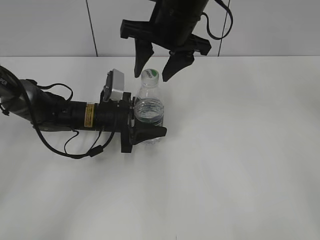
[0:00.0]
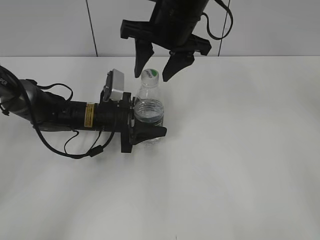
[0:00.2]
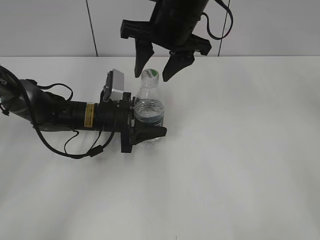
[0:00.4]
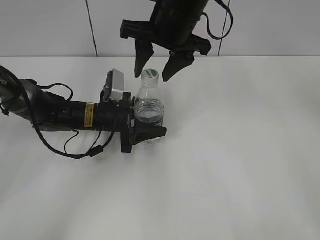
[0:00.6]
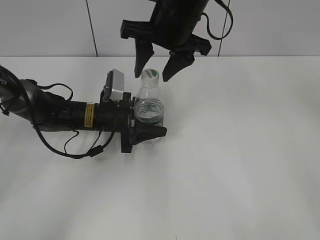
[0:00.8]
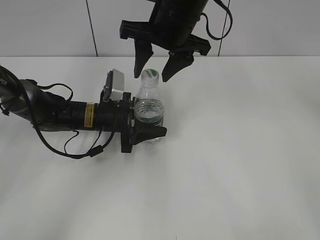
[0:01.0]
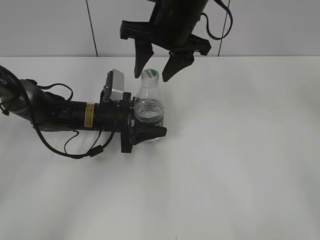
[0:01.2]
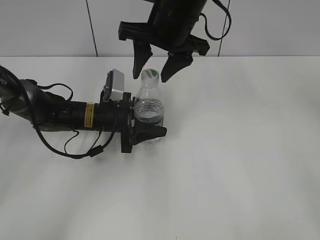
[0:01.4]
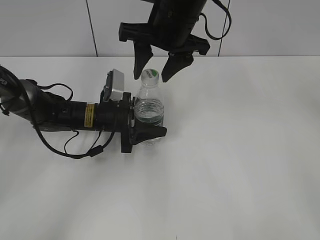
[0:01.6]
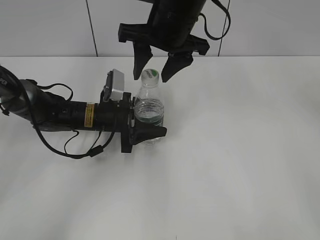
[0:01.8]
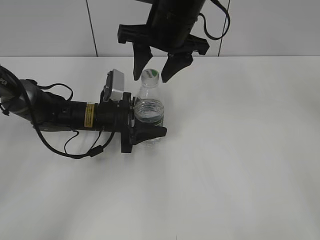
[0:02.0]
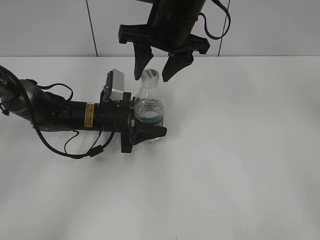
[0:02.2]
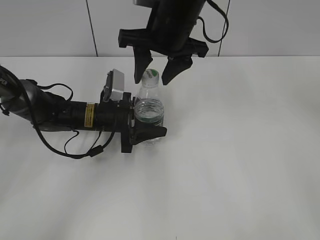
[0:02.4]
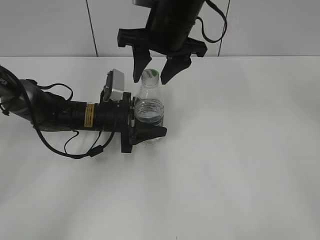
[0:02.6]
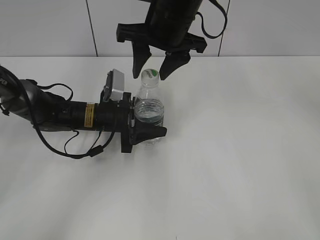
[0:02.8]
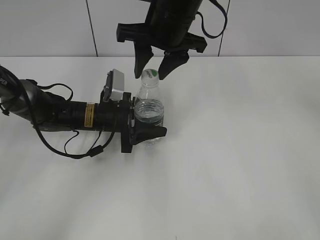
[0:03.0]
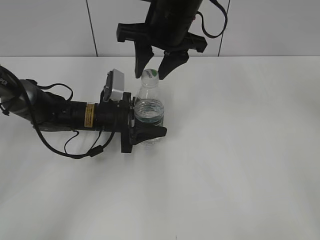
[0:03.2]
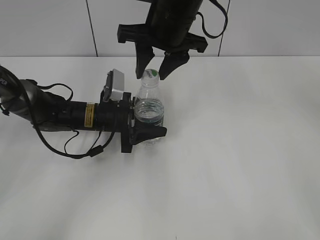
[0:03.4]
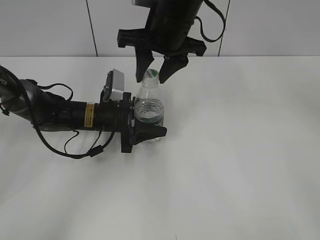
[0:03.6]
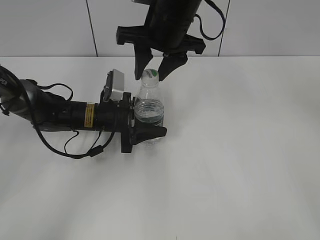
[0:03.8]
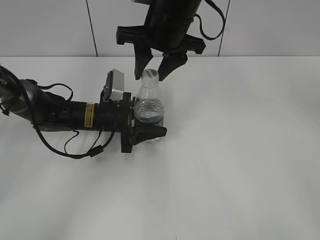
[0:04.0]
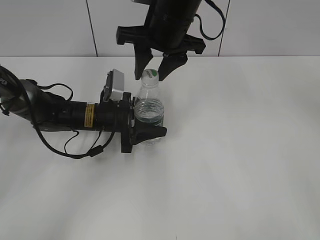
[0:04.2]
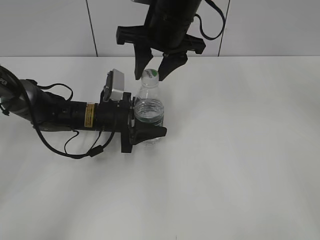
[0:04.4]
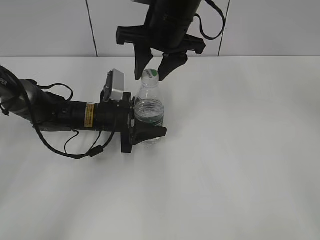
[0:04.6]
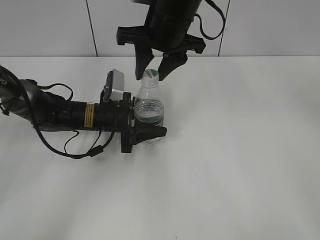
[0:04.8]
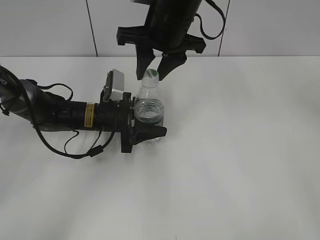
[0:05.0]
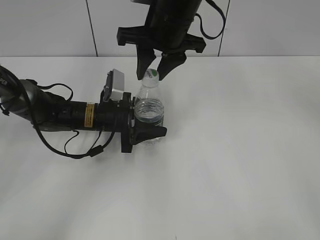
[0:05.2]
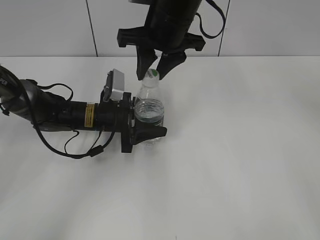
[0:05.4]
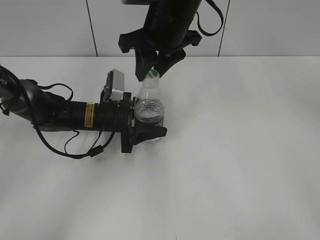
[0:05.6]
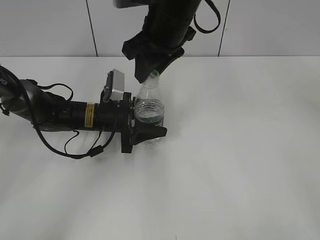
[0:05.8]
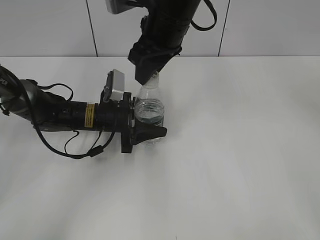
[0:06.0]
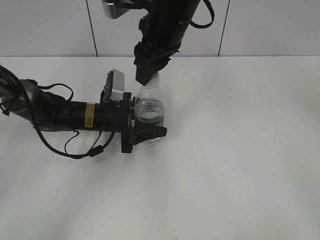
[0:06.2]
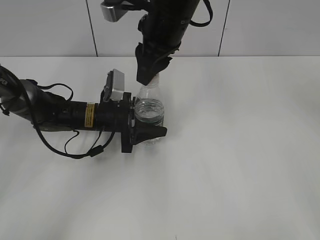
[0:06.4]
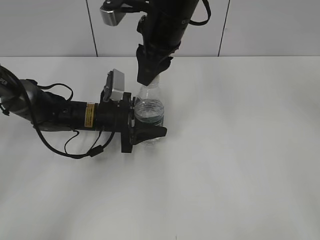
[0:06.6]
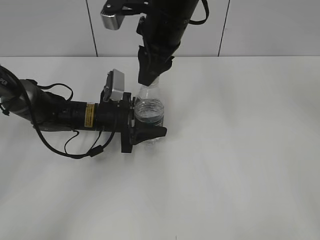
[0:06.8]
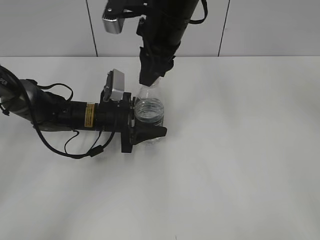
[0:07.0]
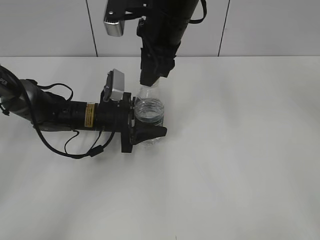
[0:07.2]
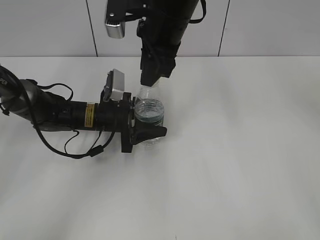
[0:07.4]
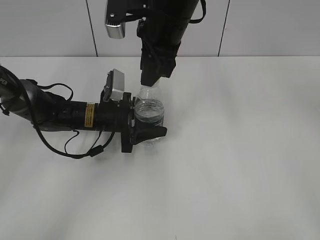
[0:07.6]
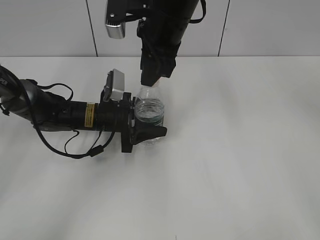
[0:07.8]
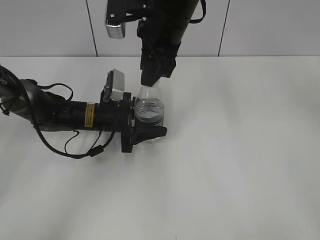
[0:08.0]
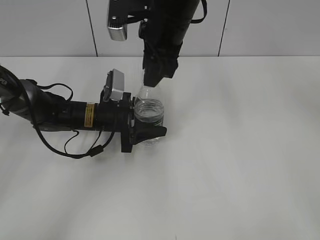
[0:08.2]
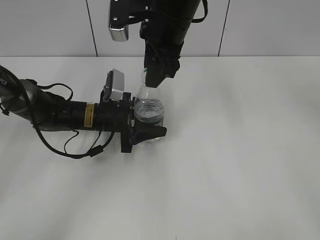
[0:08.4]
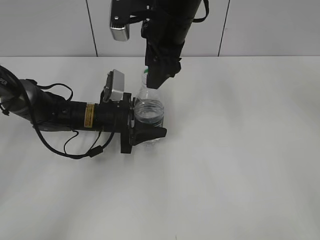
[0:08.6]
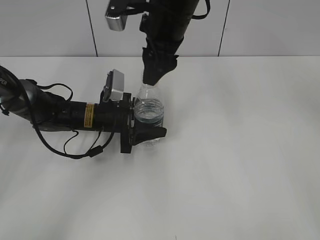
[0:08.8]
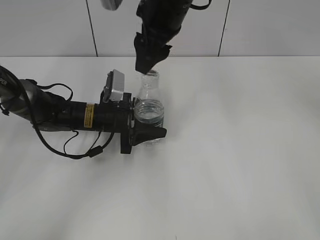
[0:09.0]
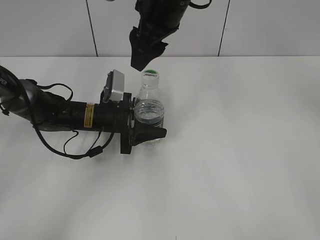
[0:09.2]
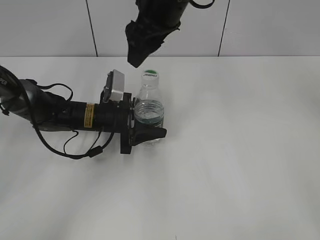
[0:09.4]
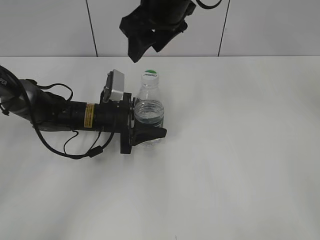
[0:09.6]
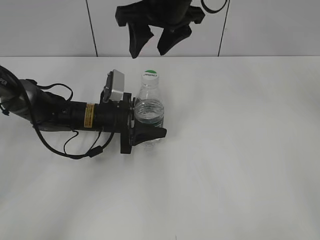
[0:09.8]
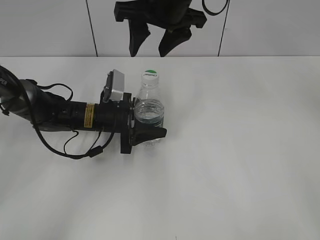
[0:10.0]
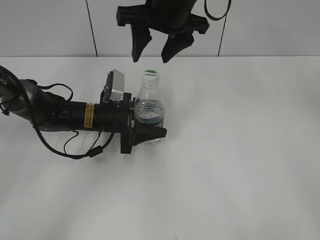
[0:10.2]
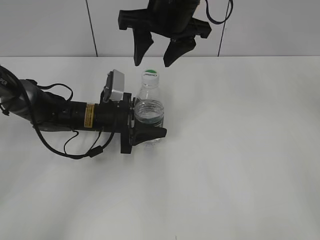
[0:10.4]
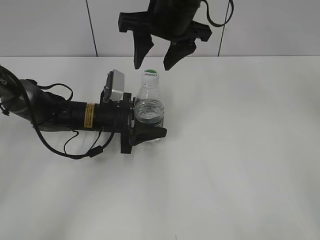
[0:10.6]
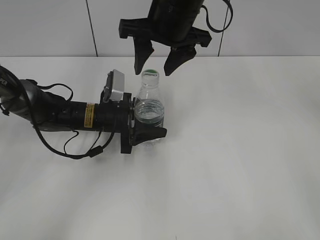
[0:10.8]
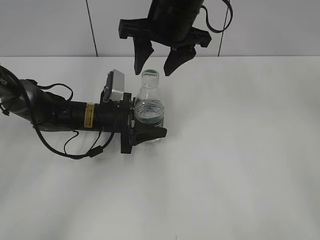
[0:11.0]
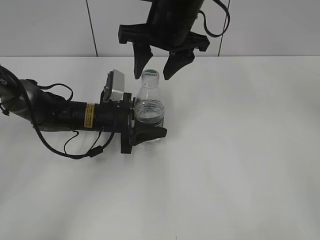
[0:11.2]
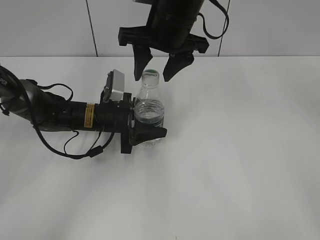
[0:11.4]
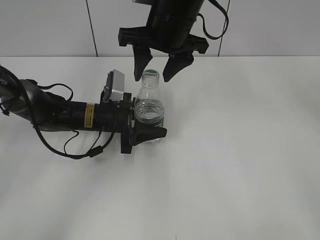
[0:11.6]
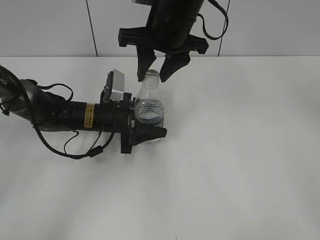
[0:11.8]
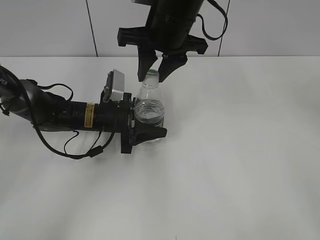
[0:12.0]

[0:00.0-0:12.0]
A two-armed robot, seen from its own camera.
0:00.0 to 0:03.0: Both grippers stay put.
0:03.0 to 0:04.4: Both grippers stay put.
0:07.6 to 0:09.0: The right gripper opens its fingers.
0:10.4 to 0:12.0: The right gripper closes.

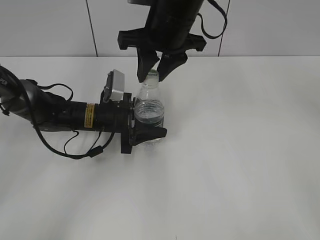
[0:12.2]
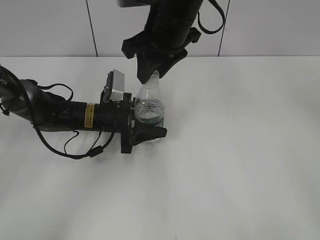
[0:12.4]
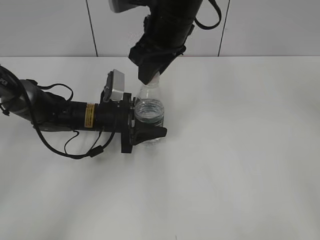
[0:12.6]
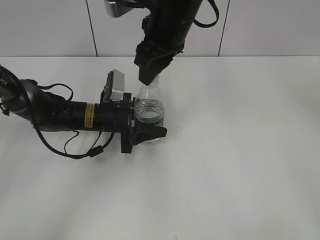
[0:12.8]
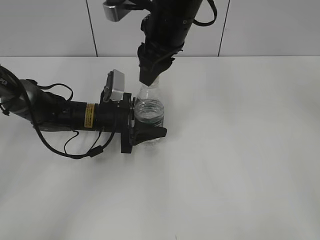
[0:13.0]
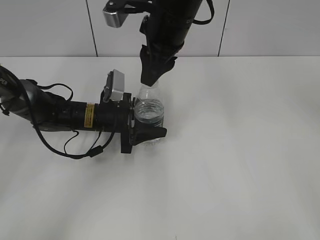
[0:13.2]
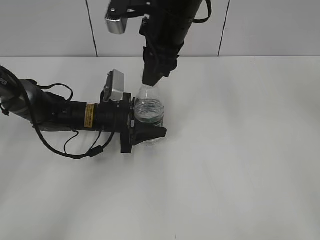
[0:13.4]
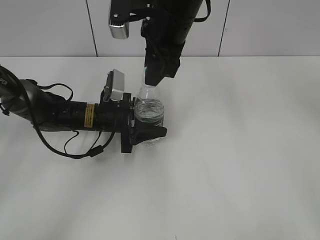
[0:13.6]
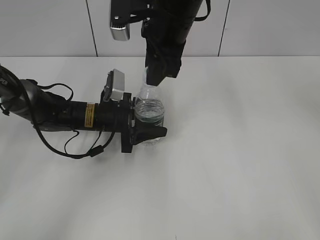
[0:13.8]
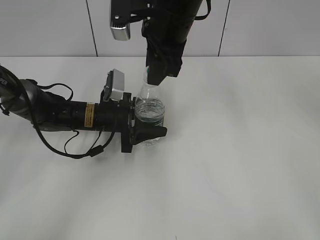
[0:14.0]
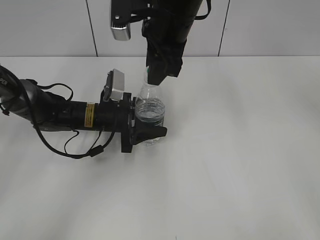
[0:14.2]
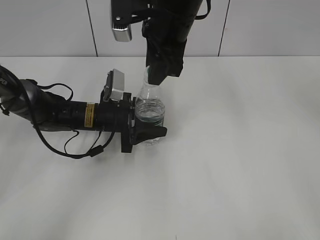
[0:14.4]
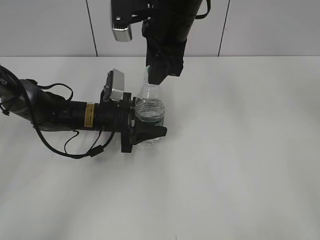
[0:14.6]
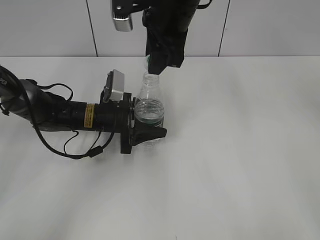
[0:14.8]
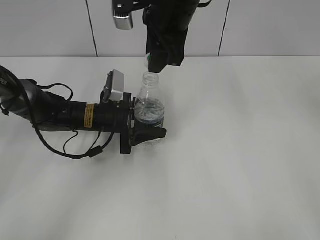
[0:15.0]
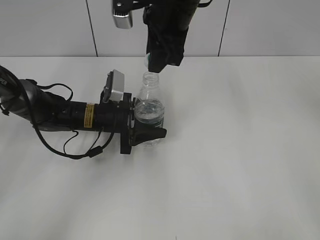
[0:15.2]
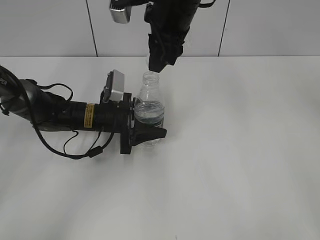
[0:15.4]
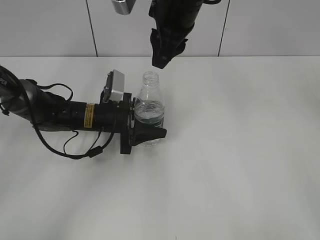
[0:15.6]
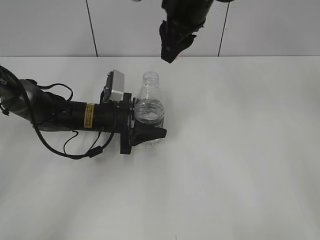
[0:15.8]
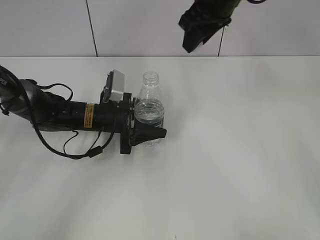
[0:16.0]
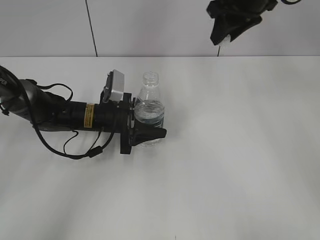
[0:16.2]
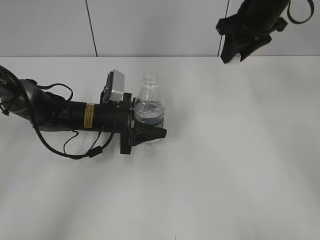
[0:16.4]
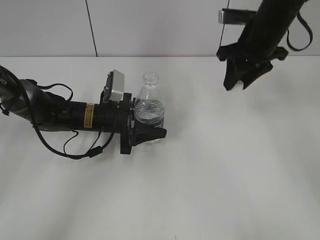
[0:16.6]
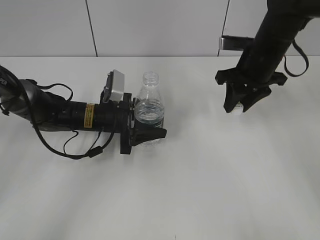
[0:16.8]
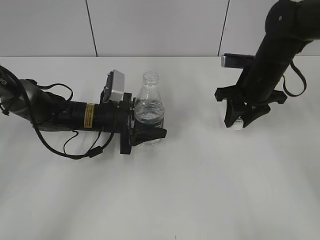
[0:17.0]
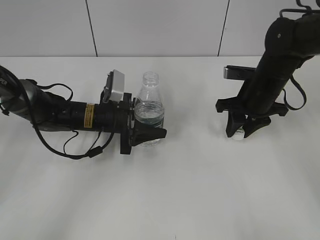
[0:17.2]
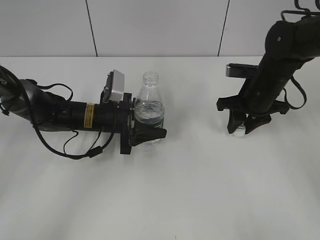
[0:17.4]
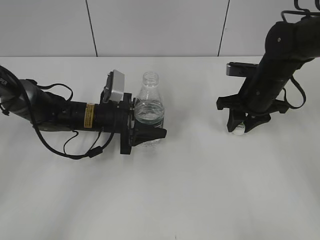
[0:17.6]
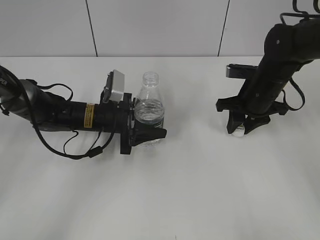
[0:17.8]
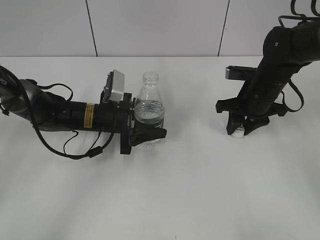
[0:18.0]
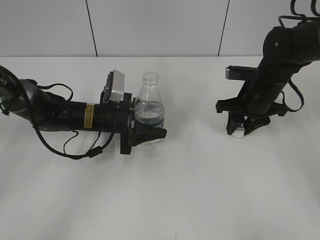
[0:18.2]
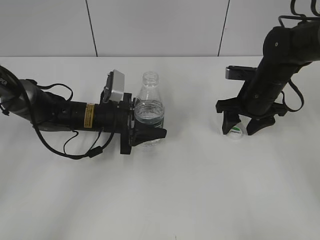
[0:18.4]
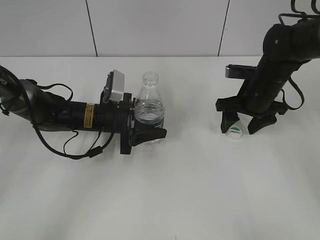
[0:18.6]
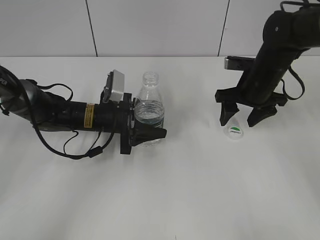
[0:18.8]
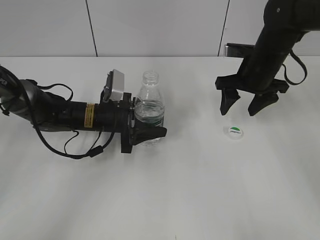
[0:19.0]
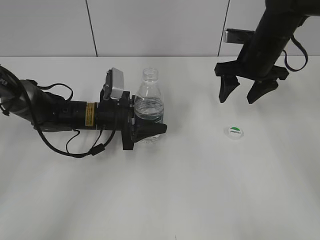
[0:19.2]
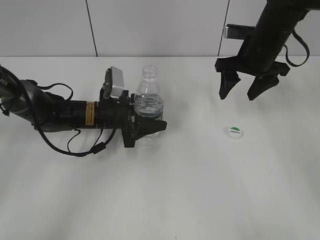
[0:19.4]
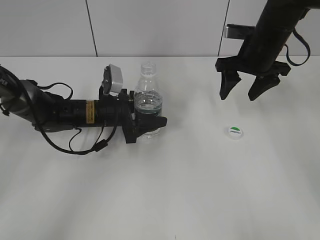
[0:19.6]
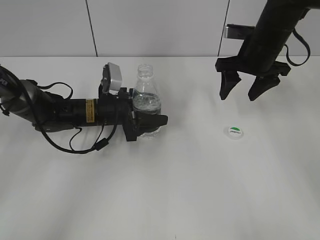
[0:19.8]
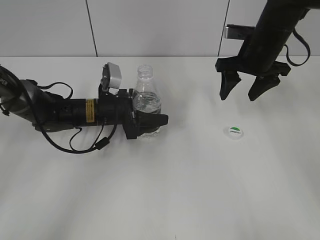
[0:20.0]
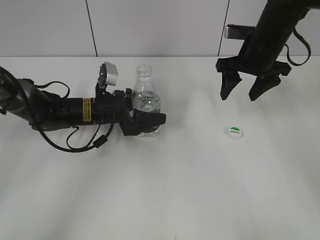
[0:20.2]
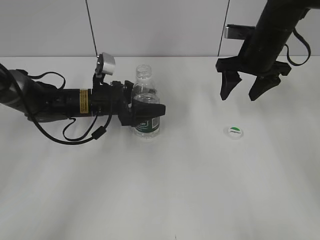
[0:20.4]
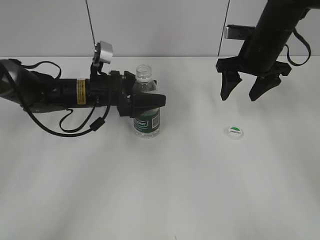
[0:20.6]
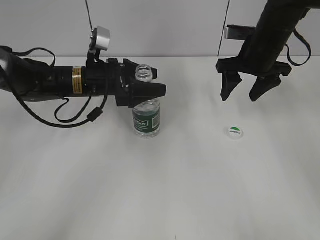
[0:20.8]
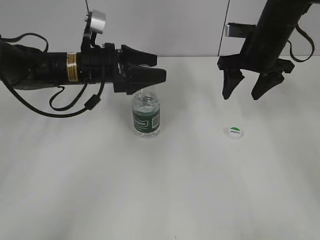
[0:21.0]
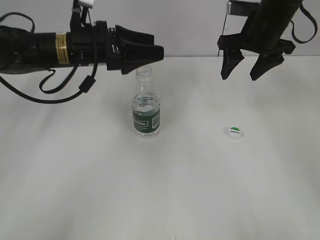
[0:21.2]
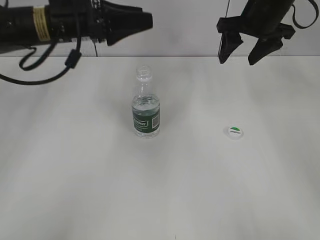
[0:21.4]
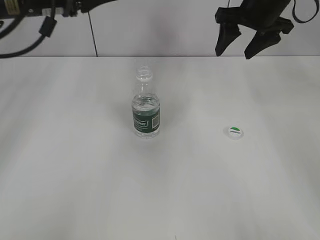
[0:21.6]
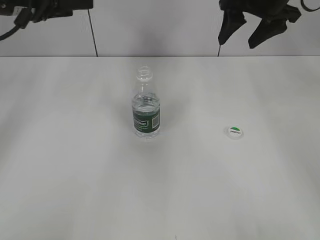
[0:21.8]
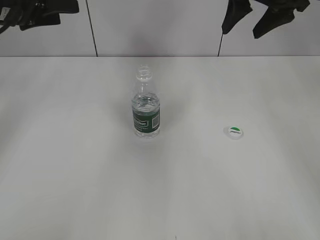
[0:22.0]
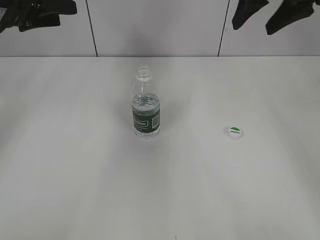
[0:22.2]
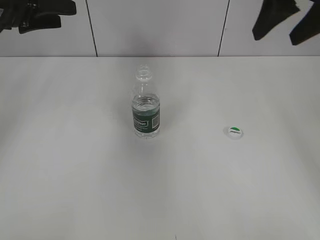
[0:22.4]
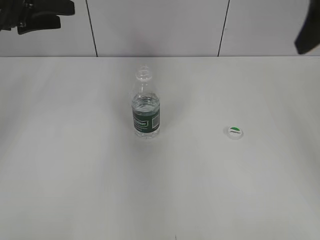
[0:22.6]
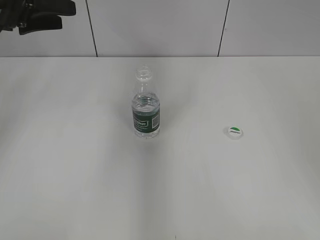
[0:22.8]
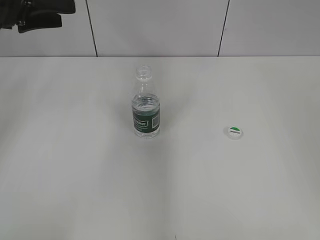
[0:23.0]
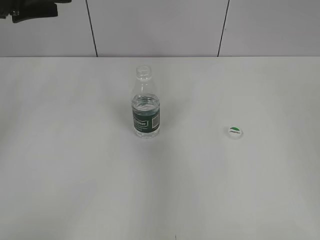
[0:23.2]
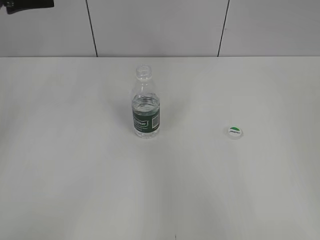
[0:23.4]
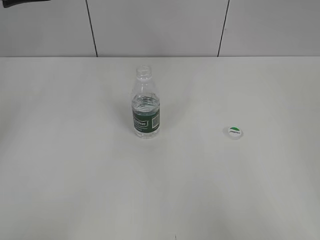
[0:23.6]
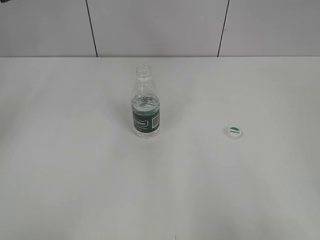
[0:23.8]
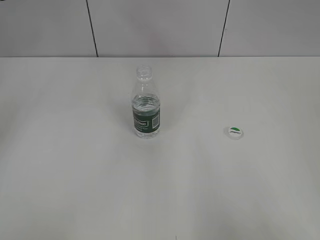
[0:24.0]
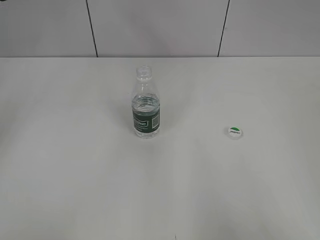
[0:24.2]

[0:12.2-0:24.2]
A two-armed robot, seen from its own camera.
Step, 0:12.2 to 0:15.4: Unscrew the bottle cap with the right gripper while holding the bottle with the left gripper.
Step, 0:15.8 to 0:18.6: Place the bottle cap on the table with the right gripper.
Step, 0:18.8 to 0:20.2: Place the bottle on the table with the left gripper.
0:13.8 to 0:15.2: The grippers move only a little.
0:15.2 to 0:16.6: The right gripper shifts about 15 cm to the right.
0:16.6 to 0:18.2: The right gripper is displaced downward by about 10 cm.
0:18.2 to 0:19.8: The right gripper moves upward, some 10 cm, and opens up.
0:19.8 to 0:21.2: The left gripper shifts roughly 15 cm upward.
0:21.2 to 0:22.6: The left gripper heads to the left and upward, covering some 15 cm, and closes up; the right gripper heads backward and upward, covering about 20 cm.
0:22.6 to 0:24.2: The left gripper is displaced upward by some 5 cm; the right gripper travels backward by approximately 30 cm, and closes up.
